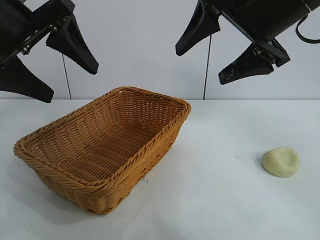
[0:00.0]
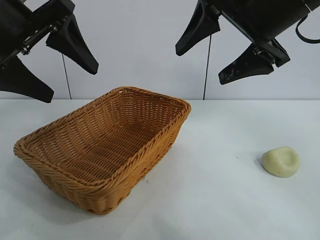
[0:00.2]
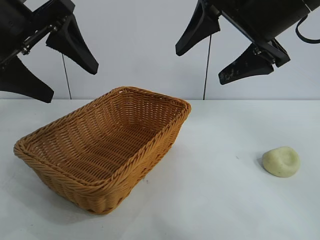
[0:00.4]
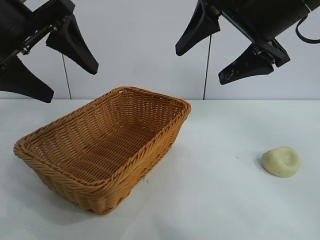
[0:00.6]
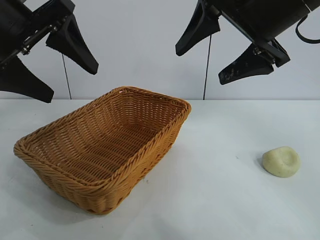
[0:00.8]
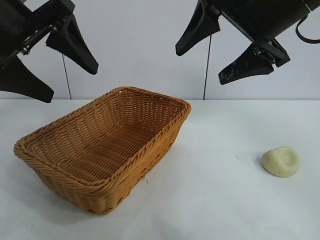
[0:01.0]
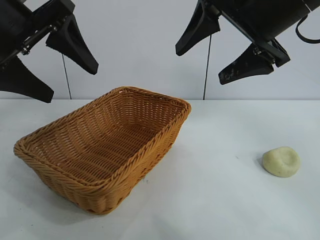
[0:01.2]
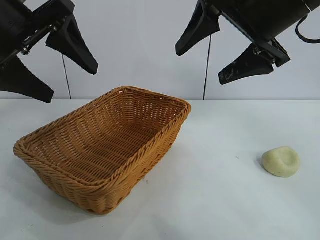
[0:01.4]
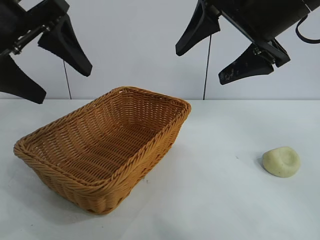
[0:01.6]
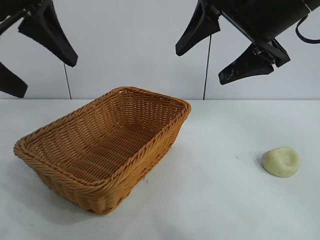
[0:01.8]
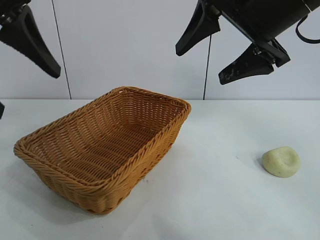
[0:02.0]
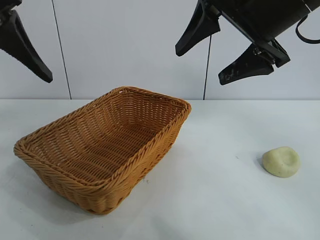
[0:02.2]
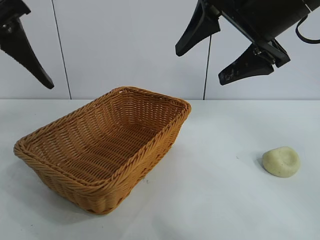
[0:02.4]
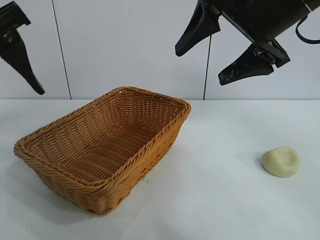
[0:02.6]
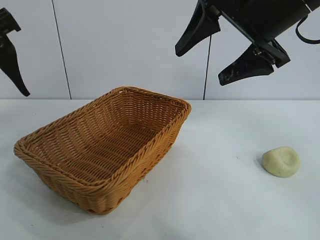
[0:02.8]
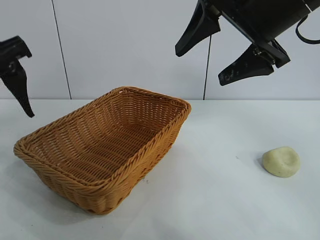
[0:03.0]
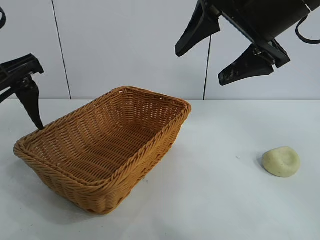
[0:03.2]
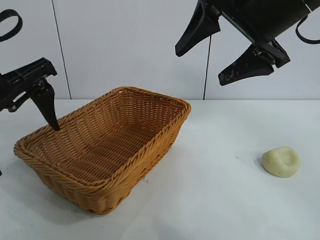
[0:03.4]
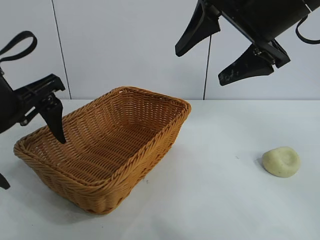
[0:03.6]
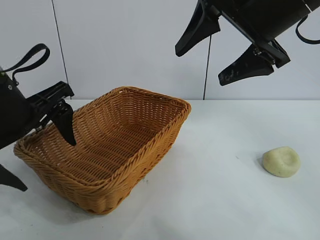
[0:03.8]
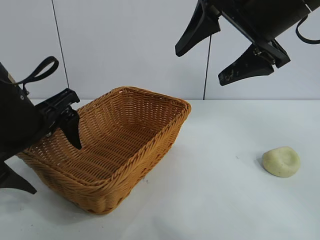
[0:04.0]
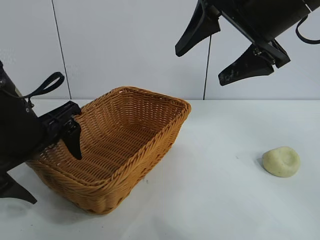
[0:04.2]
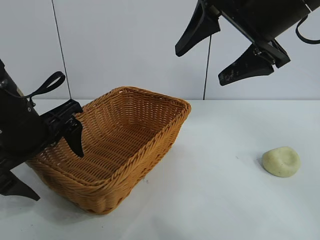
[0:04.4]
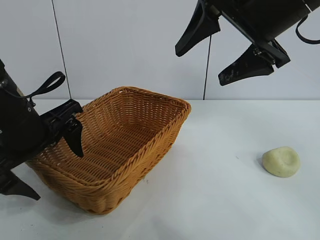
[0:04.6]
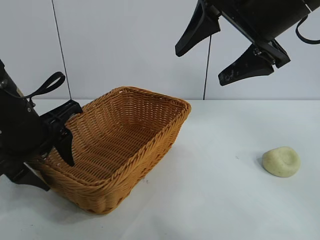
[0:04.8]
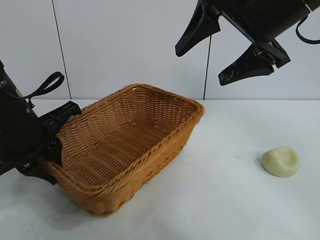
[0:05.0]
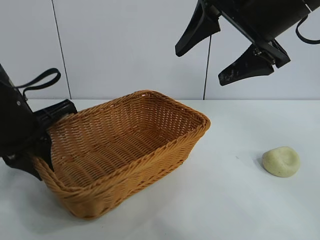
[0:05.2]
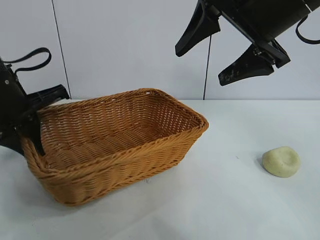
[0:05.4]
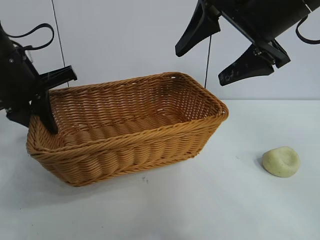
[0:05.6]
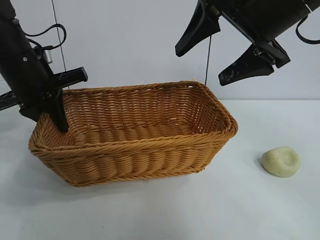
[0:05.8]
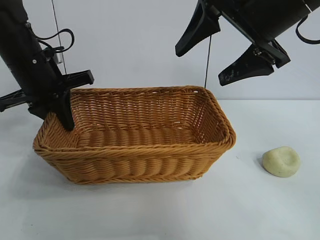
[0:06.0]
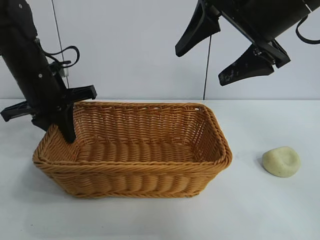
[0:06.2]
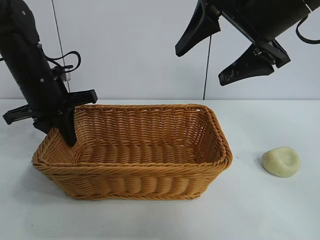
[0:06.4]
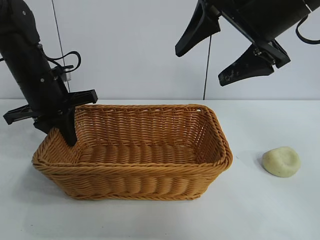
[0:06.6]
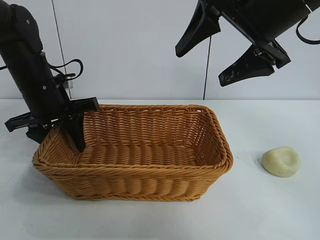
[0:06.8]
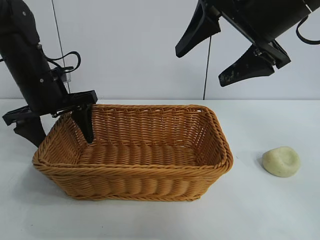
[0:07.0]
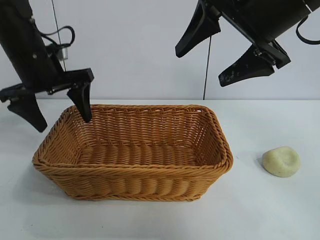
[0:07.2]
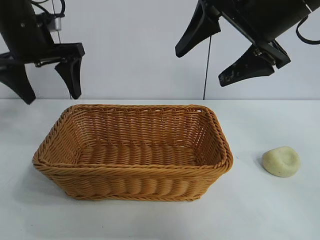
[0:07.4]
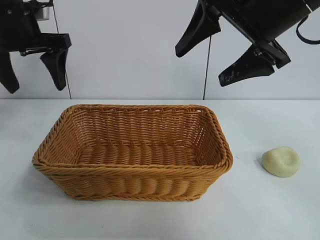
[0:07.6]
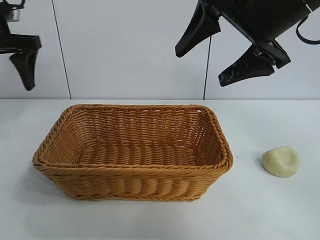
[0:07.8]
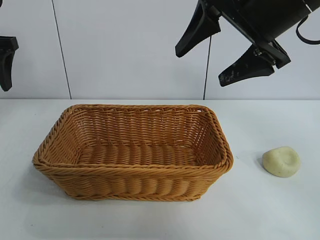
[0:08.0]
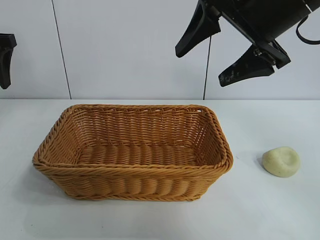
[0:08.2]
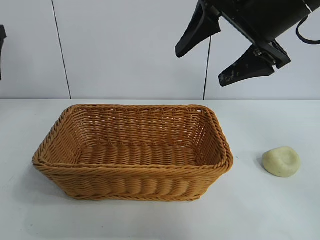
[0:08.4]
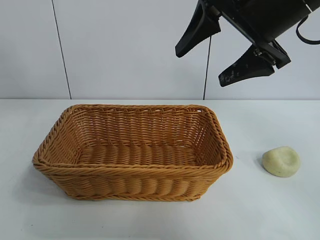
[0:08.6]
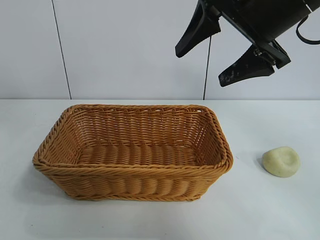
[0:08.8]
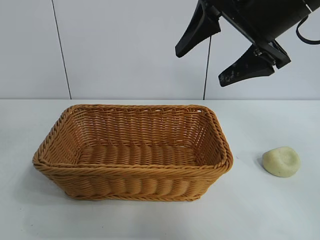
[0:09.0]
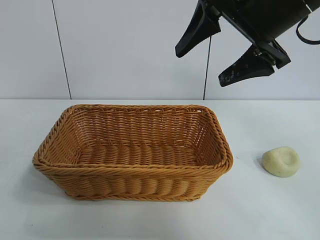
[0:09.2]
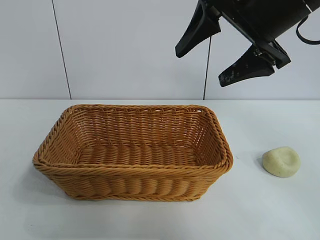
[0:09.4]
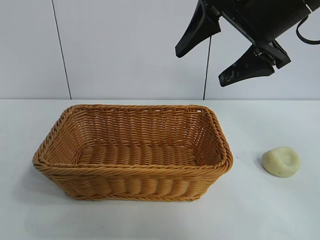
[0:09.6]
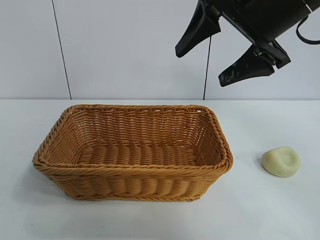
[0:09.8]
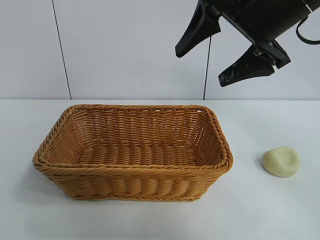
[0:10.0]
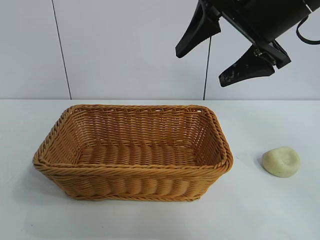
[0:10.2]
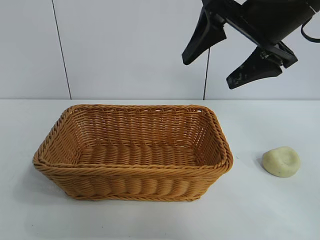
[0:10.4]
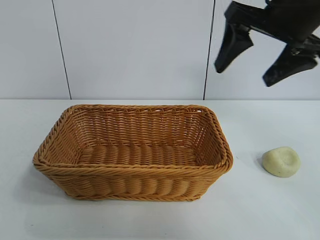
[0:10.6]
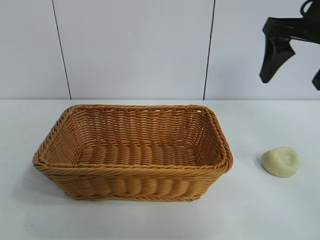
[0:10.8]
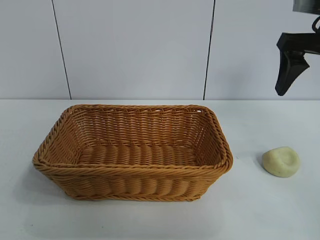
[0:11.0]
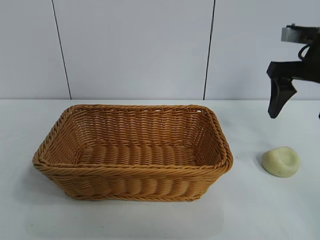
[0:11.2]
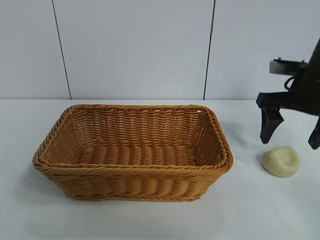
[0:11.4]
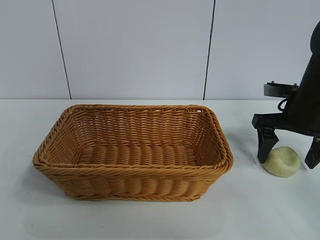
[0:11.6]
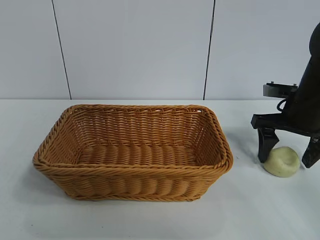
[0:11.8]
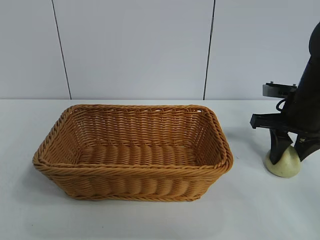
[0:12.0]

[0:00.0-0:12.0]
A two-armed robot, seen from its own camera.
Task of the whole recording: pick up the egg yolk pastry and put it into the basket.
Step, 0:01.6 to 0:05.0: Grasp the basket with left gripper.
Step, 0:05.2 to 0:06.8: Place the basket in the center of view with left gripper.

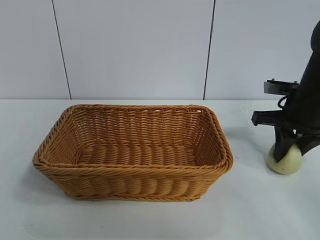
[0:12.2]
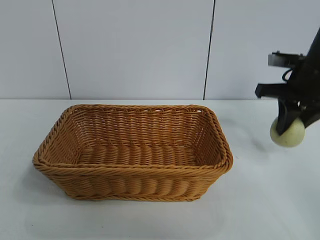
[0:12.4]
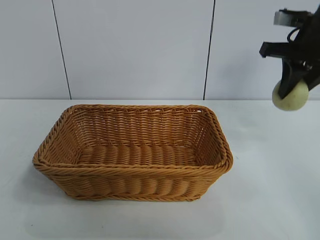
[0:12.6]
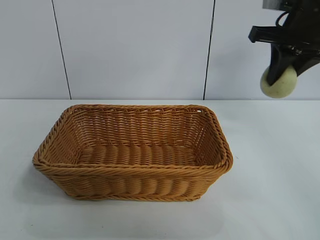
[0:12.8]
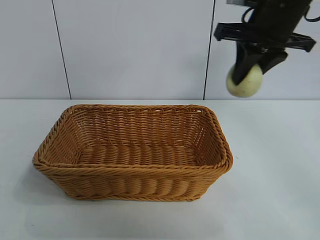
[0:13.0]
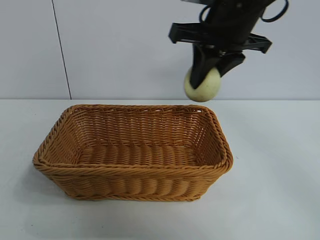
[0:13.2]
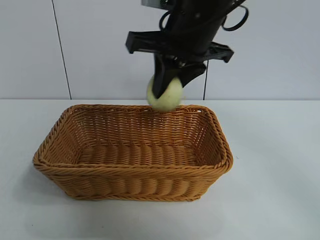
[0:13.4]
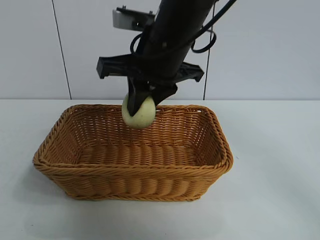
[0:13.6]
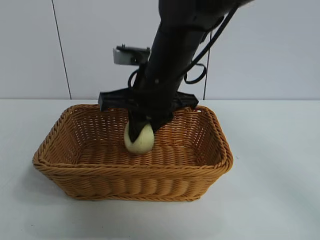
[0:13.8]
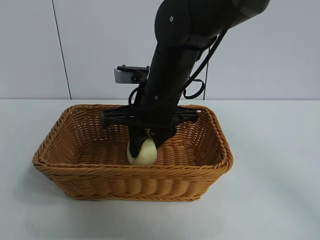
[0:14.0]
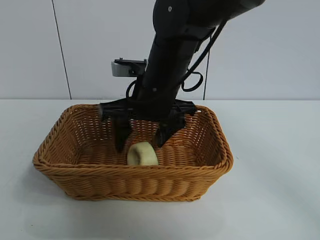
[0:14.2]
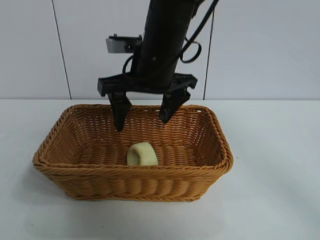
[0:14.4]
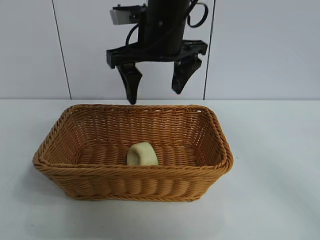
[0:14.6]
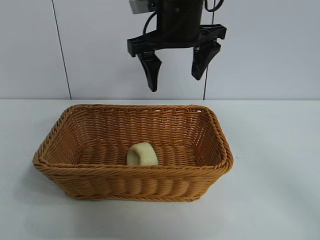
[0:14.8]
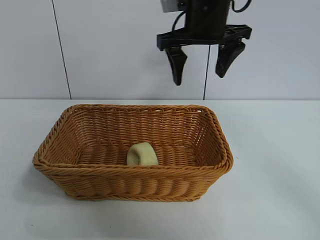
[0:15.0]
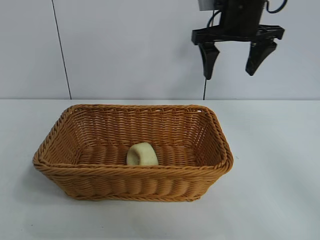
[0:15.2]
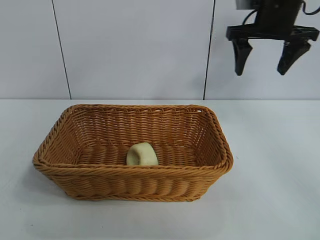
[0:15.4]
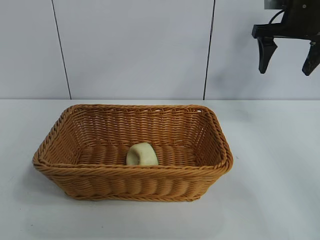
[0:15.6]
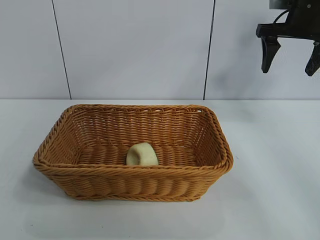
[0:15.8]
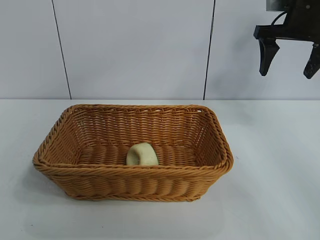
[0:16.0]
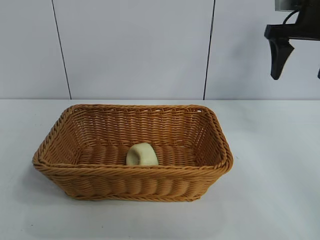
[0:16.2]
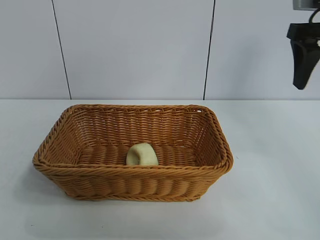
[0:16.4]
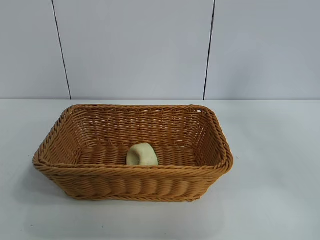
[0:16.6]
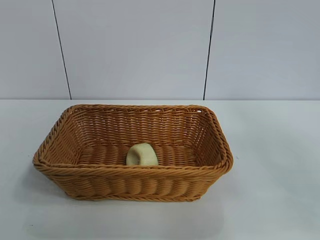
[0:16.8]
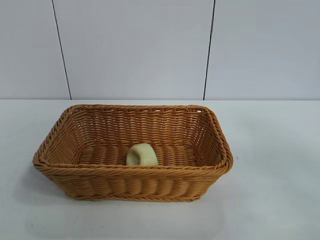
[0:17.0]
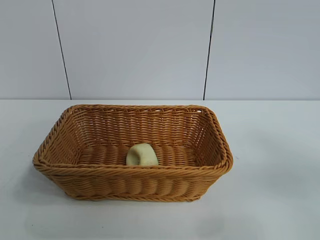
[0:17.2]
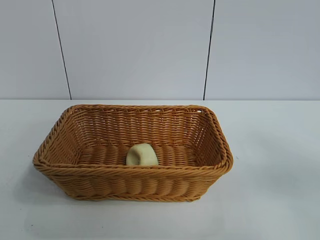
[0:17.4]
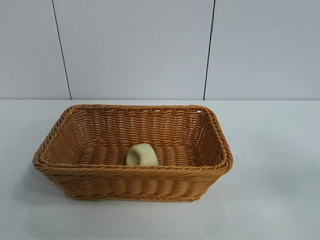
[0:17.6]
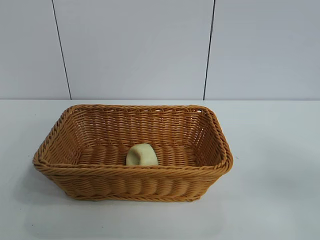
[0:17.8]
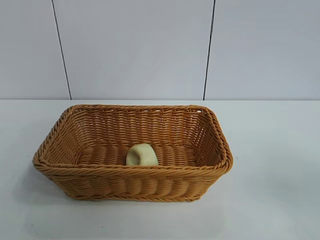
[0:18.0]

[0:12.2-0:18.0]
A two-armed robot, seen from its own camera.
Task of the whole recording: pick up the egg yolk pastry and put it into the basket.
Step, 0:12.2 to 0:14.0: Place the egg yolk pastry in the basket with right gripper.

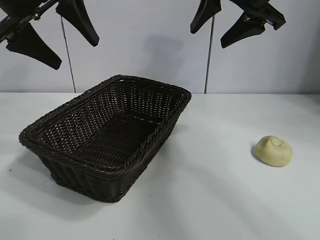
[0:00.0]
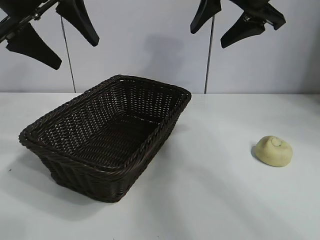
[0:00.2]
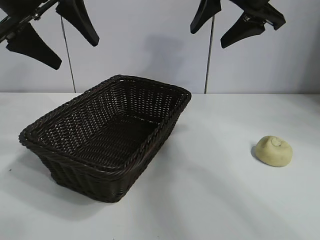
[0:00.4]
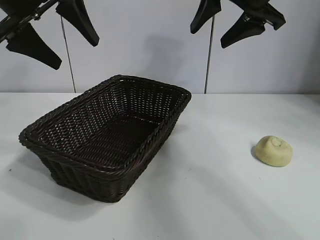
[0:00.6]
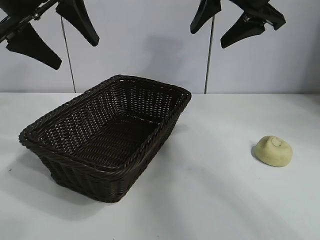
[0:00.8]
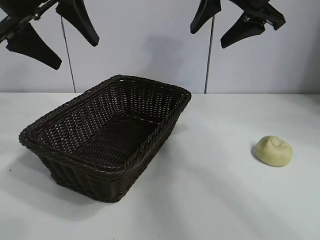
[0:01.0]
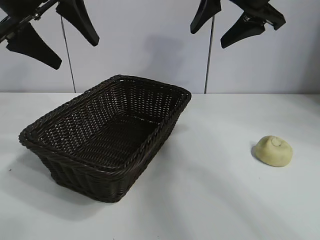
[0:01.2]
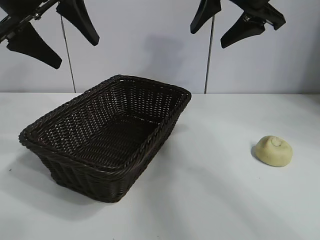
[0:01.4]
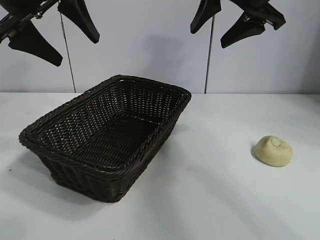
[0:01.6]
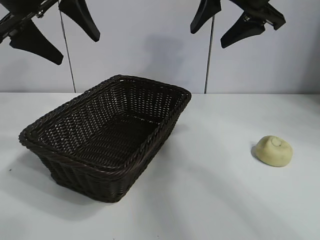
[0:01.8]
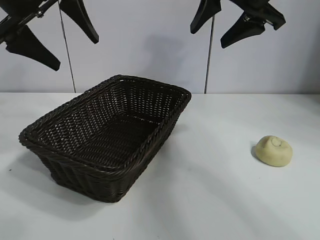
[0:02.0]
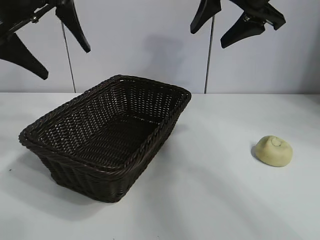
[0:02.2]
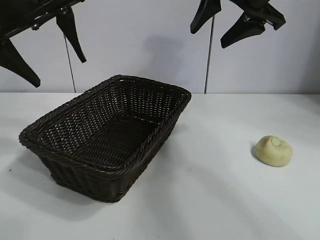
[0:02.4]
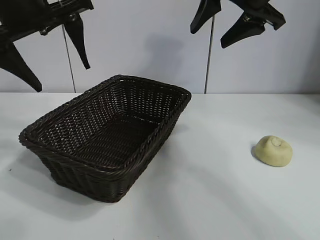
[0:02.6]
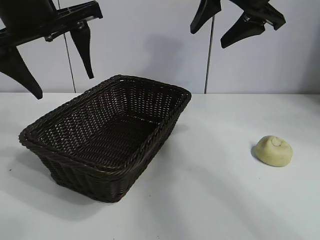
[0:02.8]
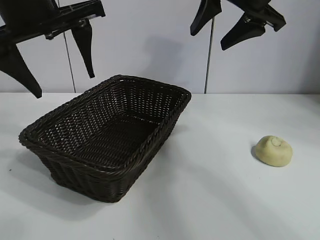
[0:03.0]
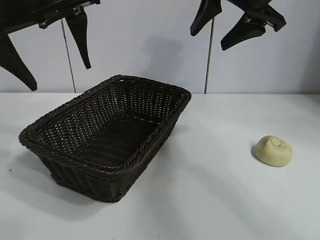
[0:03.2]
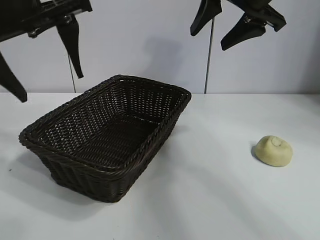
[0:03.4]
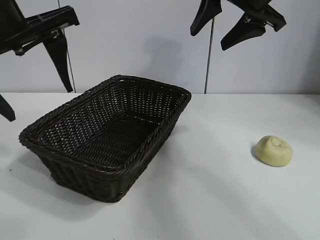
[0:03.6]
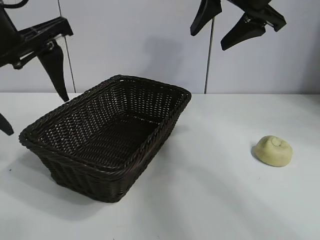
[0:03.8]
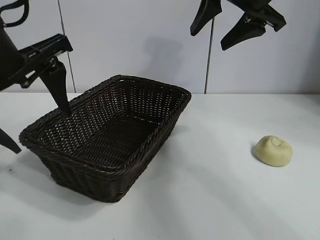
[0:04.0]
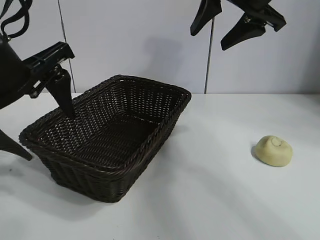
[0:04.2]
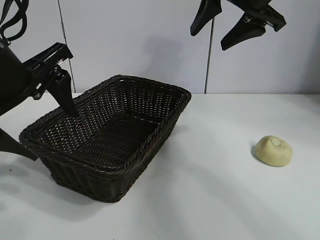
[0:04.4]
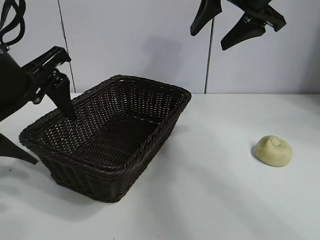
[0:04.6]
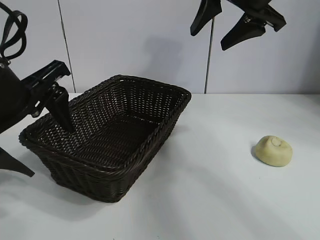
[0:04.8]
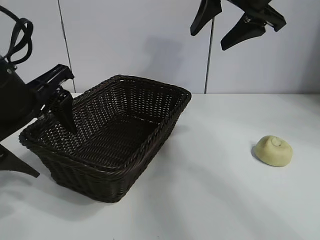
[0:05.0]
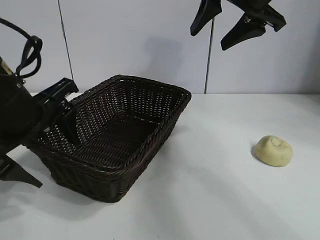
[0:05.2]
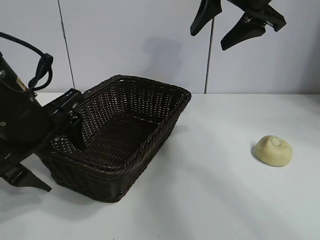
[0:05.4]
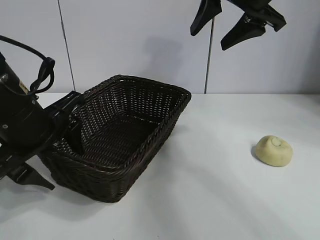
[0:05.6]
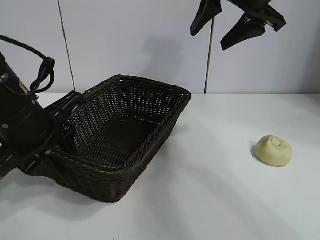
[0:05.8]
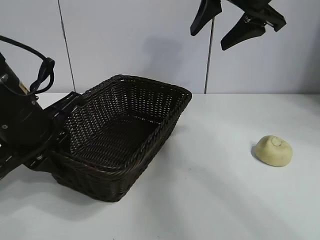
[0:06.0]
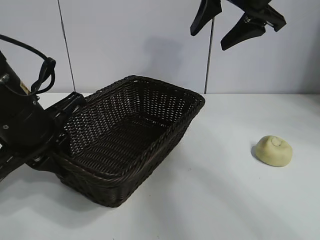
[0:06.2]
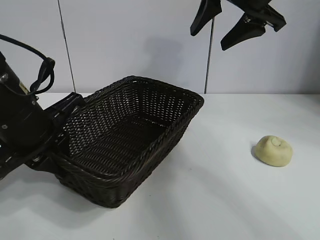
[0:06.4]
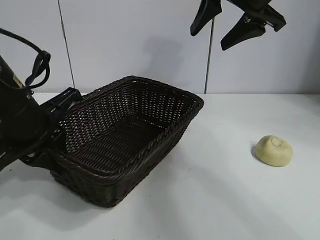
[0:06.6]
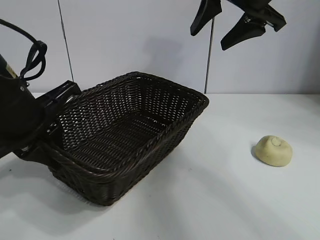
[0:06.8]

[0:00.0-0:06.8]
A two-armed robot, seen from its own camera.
Task of the whole recording: pick up the egg yolk pastry and put it into the basket.
Step, 0:01.6 to 0:06.2: Grasp the basket with left gripper.
